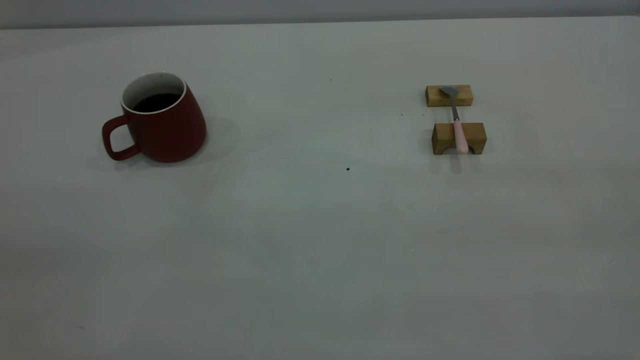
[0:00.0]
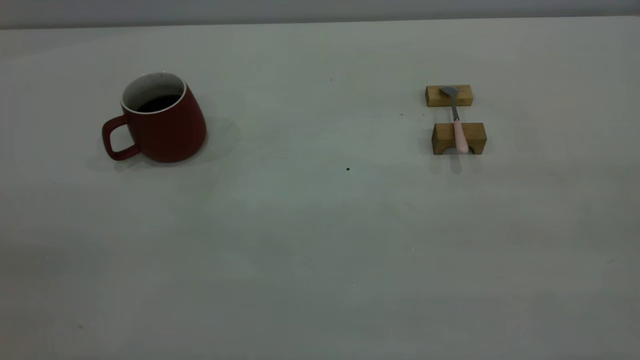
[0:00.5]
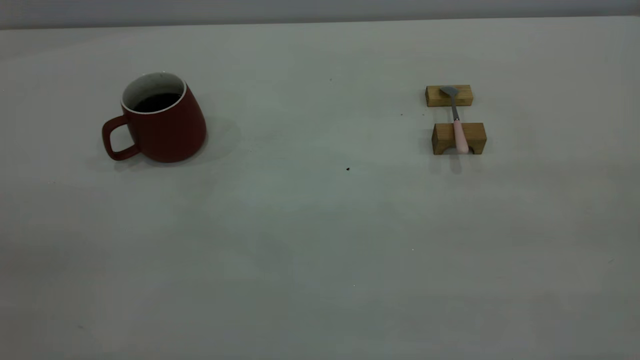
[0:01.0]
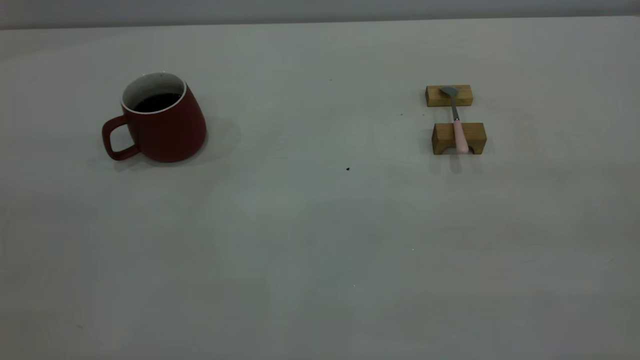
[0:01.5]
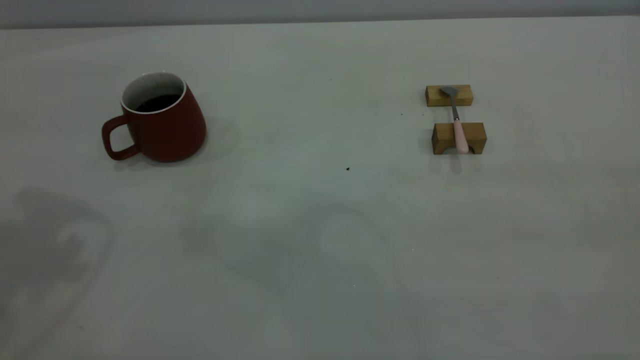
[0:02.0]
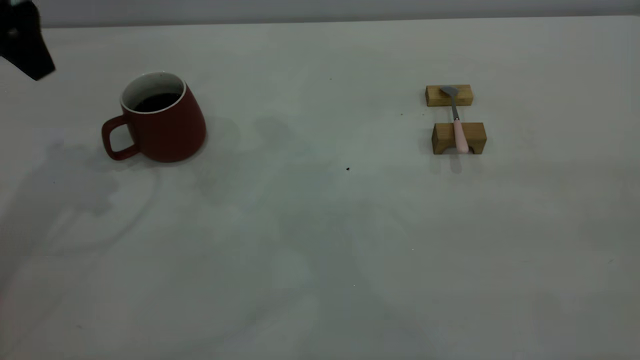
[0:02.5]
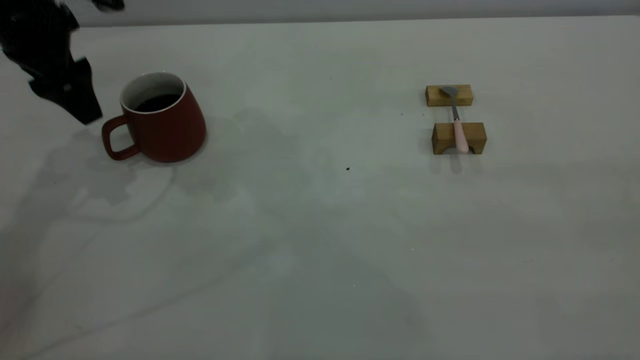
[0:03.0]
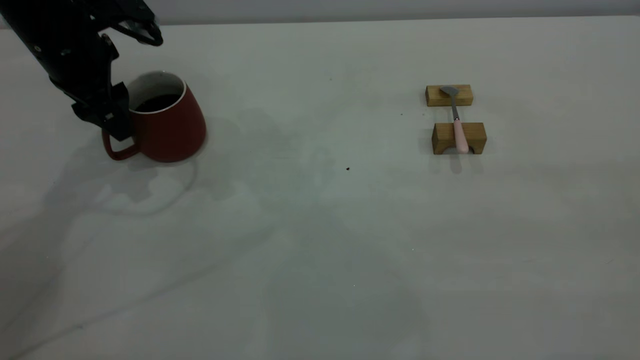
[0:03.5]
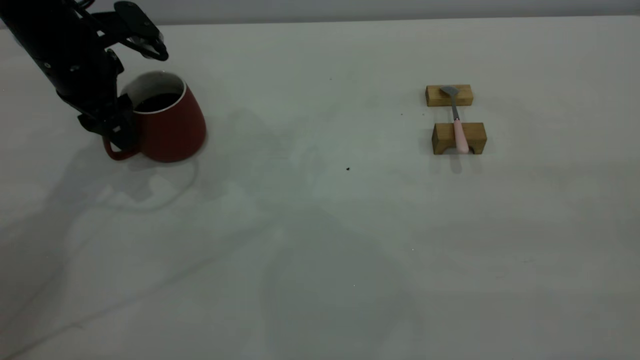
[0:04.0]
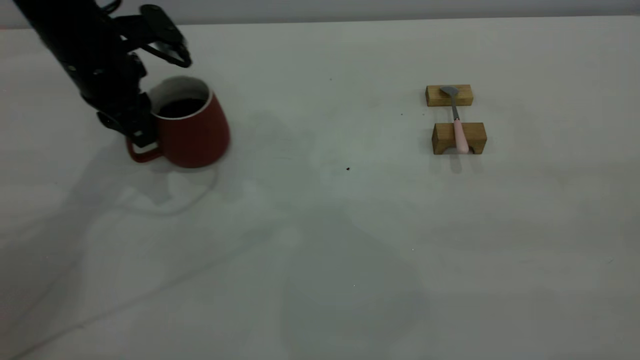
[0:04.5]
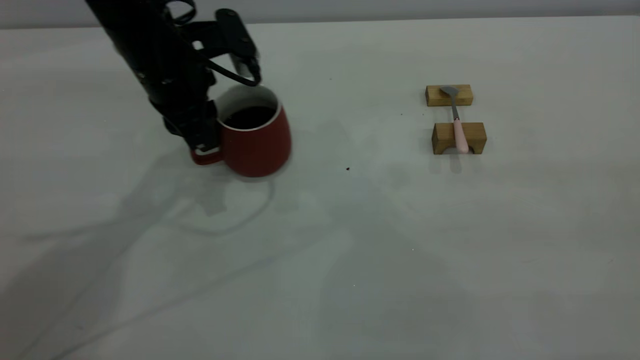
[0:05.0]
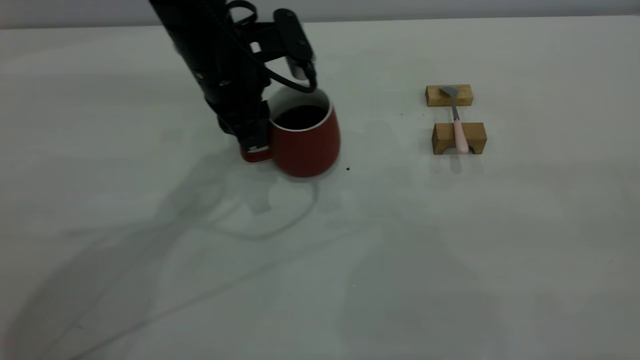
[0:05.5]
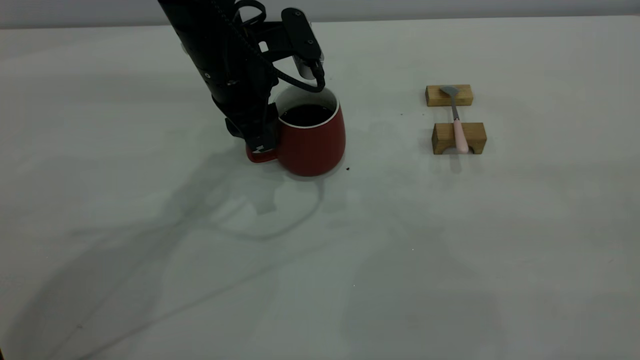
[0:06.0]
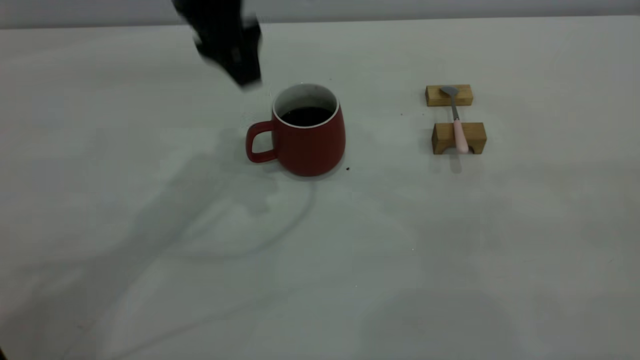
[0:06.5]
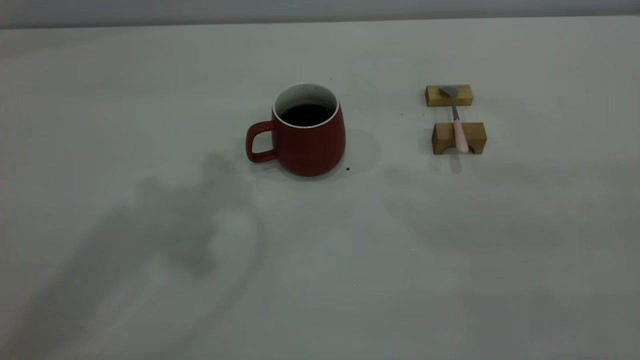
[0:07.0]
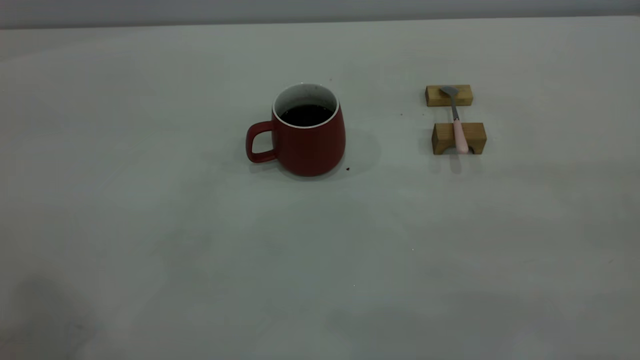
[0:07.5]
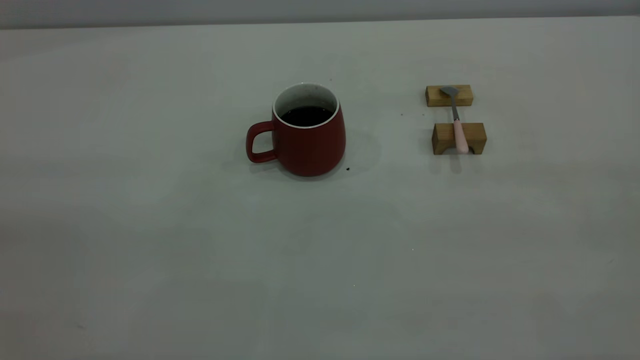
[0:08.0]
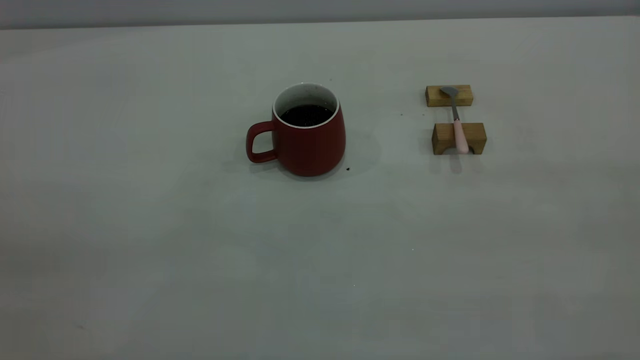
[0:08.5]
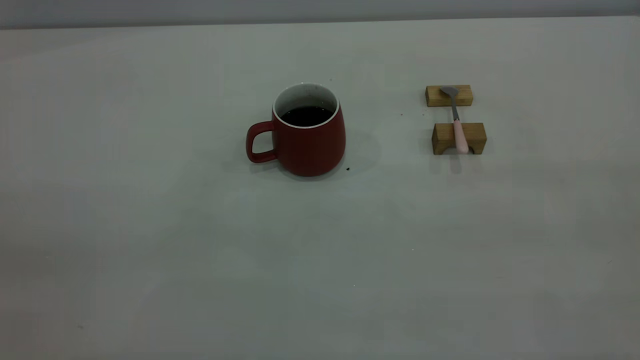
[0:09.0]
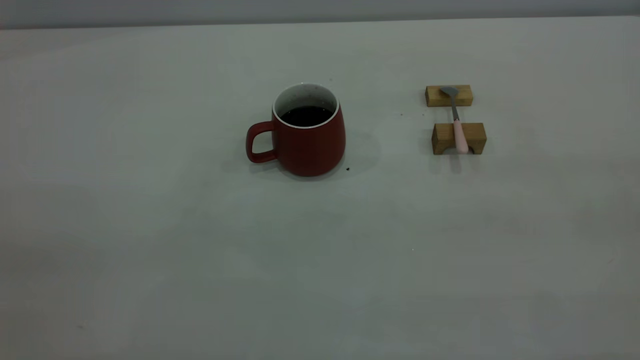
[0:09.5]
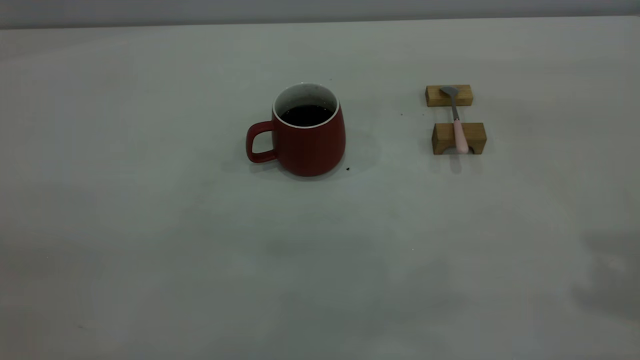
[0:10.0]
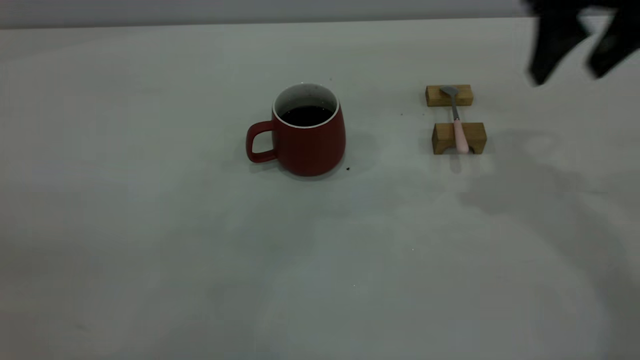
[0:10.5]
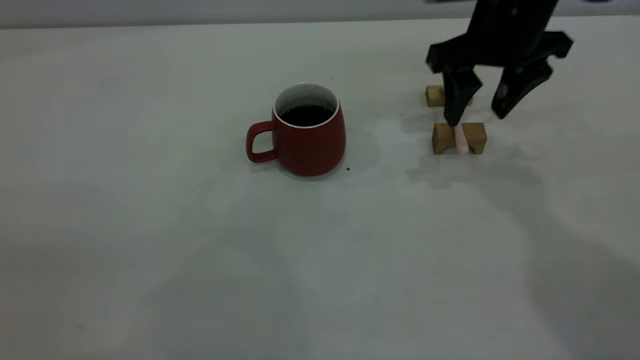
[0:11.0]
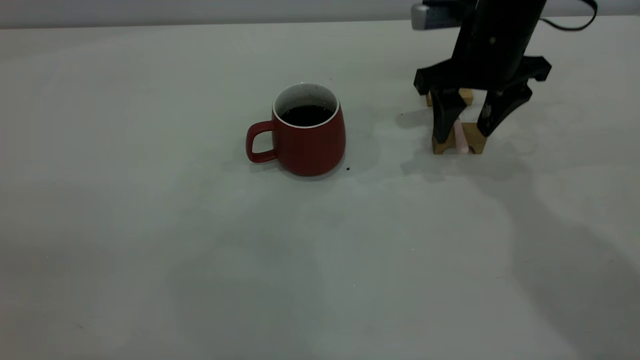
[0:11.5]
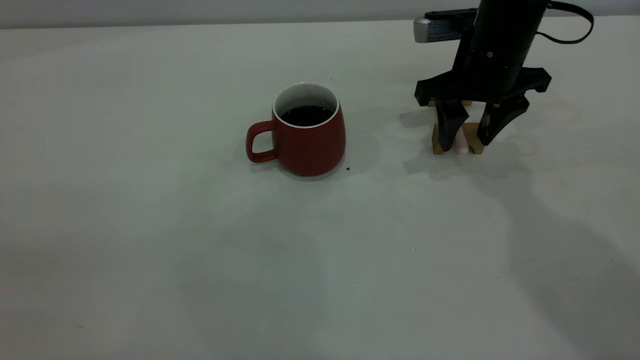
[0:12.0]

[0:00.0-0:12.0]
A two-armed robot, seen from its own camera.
Step, 0:00.0 to 0:06.0: Move the cup with coffee to the center of view.
0:02.0 to 0:04.0: The left gripper is displaced downward and forward by some 25 cm, and closes.
0:04.0 to 0:06.0: The left gripper goes roughly 15 cm to the right, and closes, then reopens.
0:06.0 to 0:08.0: The left gripper is displaced backward, upward and to the left by about 50 cm, and closes its fingers.
0:10.0 to 0:12.0: The right gripper heads downward, forward and to the left, covering approximately 35 cm.

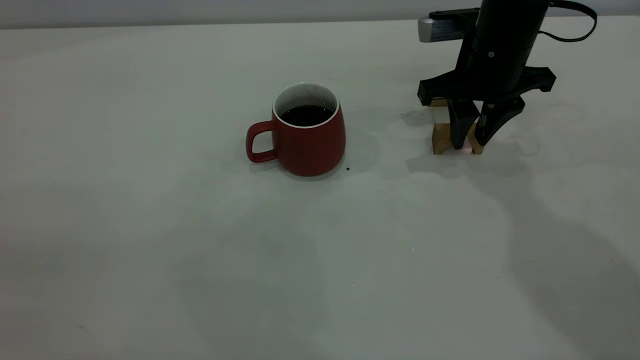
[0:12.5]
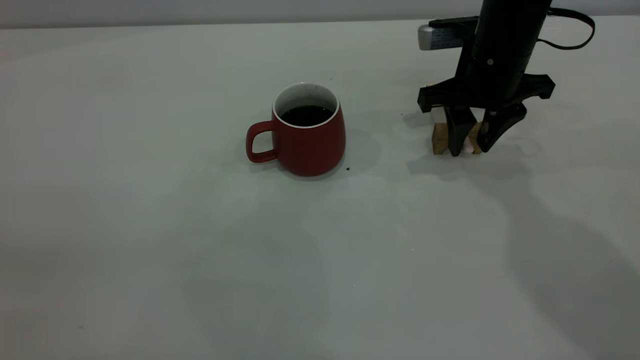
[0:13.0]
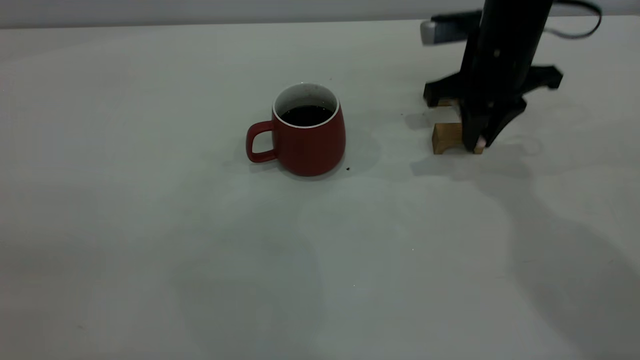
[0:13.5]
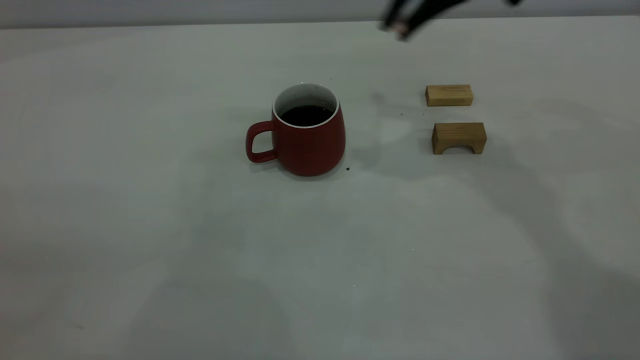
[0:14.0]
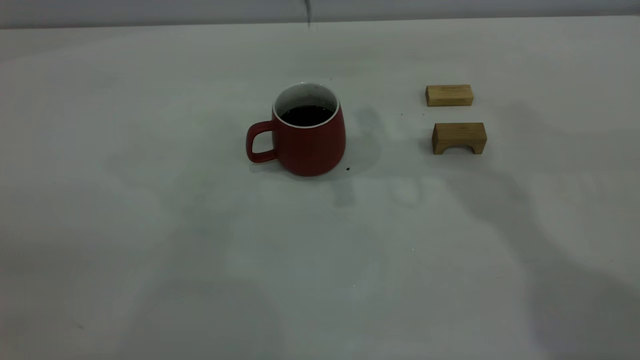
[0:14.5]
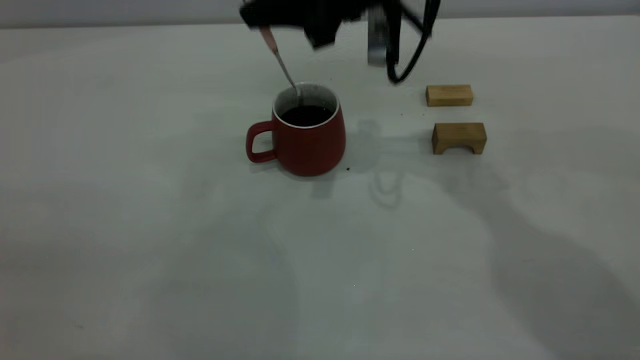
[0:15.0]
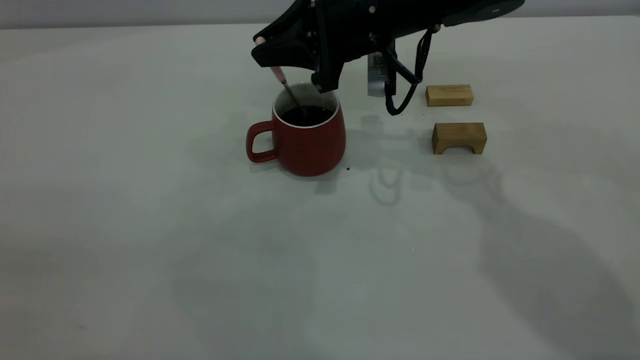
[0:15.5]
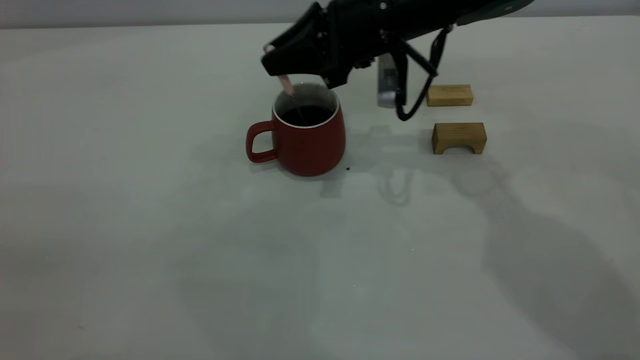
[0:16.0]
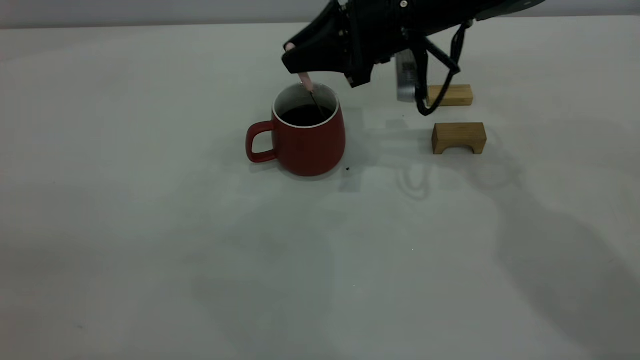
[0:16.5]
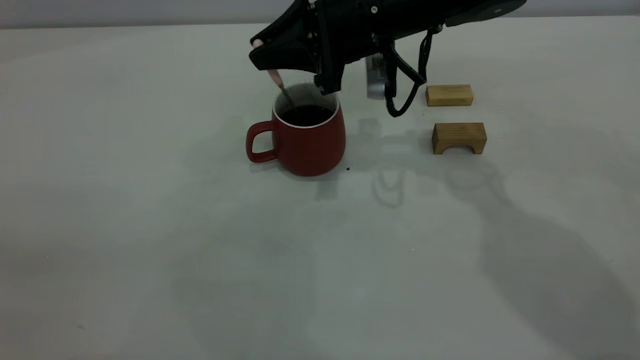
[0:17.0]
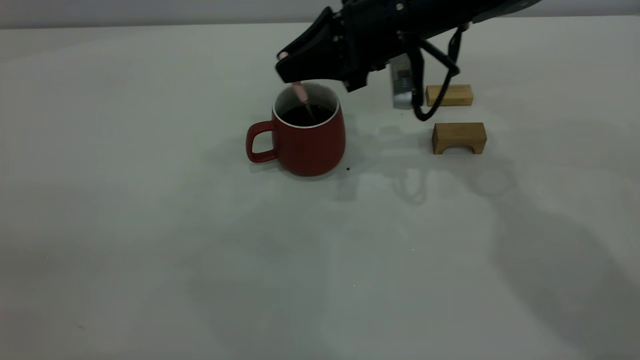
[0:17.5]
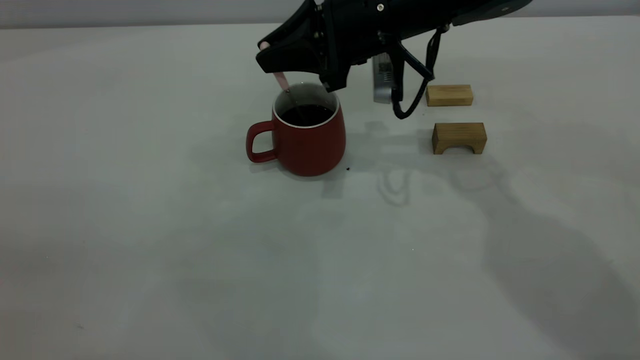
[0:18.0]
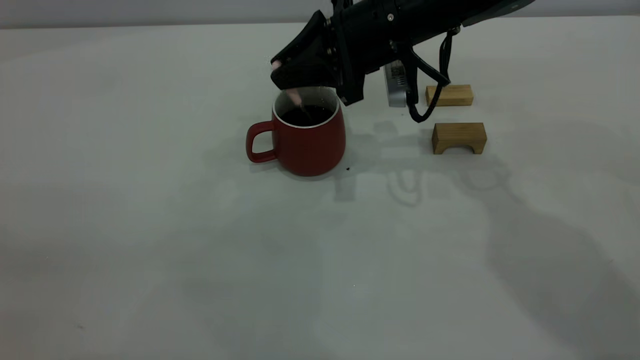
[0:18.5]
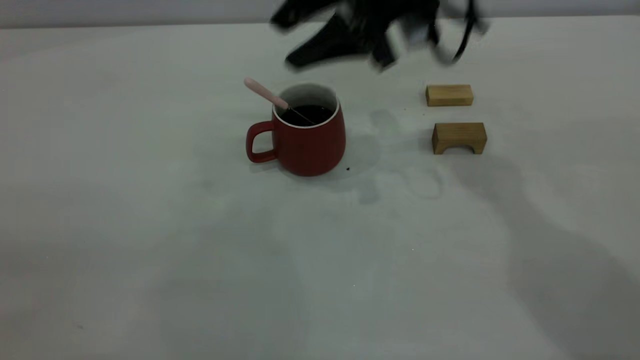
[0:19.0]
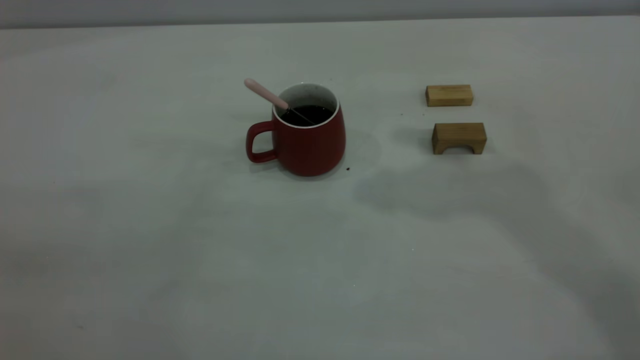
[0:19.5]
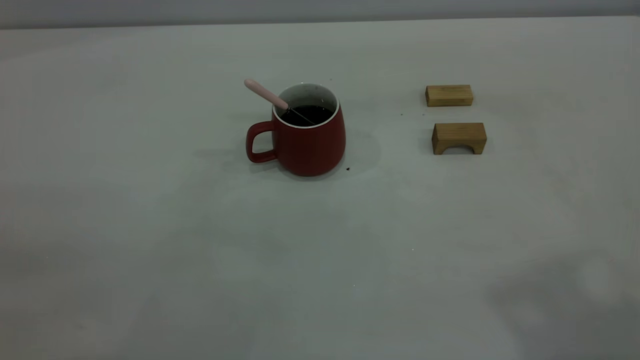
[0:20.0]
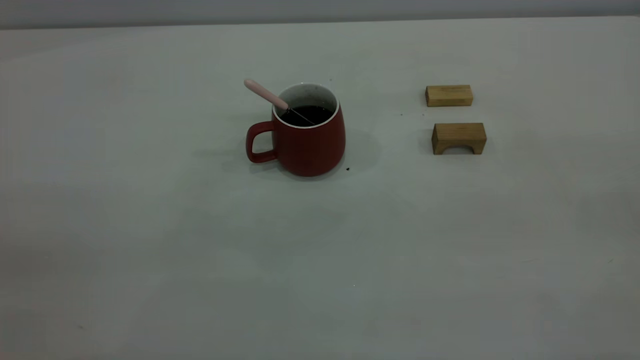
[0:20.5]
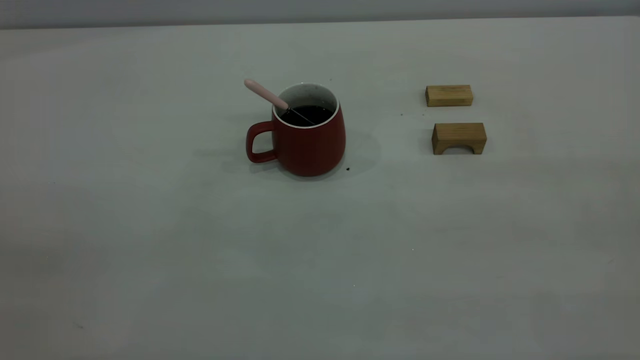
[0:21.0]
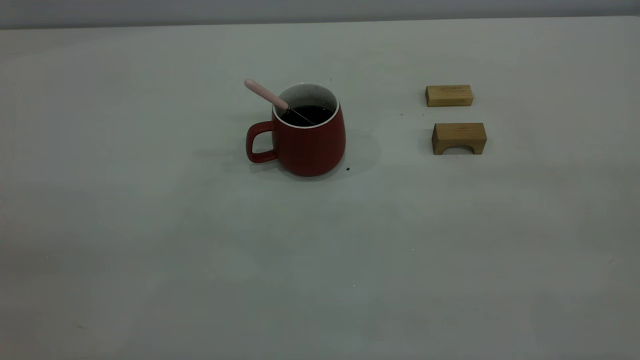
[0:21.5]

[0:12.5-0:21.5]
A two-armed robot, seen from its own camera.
Step, 0:14.0 to 0:18.5: Stir the coffee in the cup.
0:12.5 to 0:14.5: The right gripper shifts approximately 20 cm upward and to the left, and closes.
0:14.5 to 0:17.0: The right gripper is displaced downward by some 15 cm.
0:17.0 to 0:19.5: The right gripper heads upward, covering roughly 30 cm, and opens.
